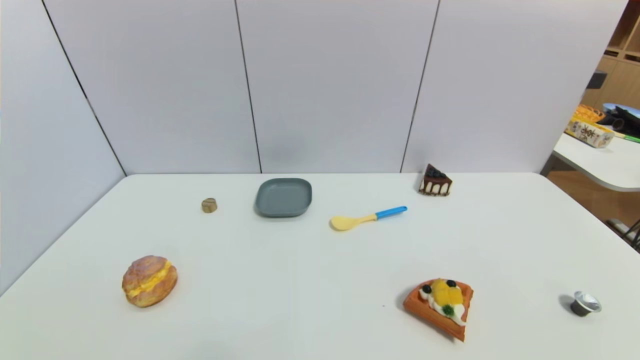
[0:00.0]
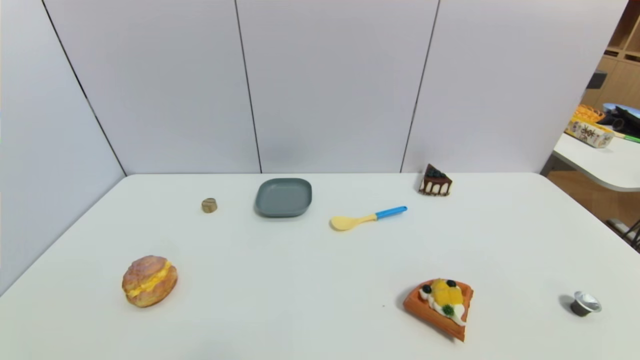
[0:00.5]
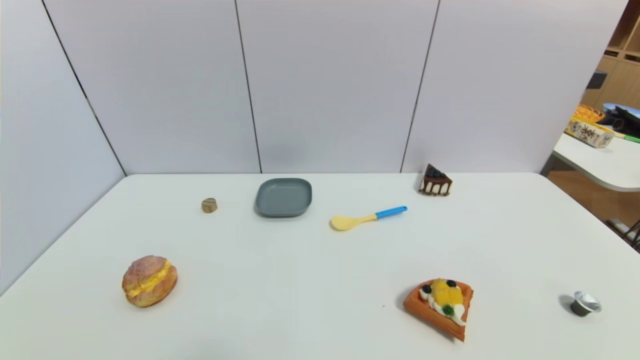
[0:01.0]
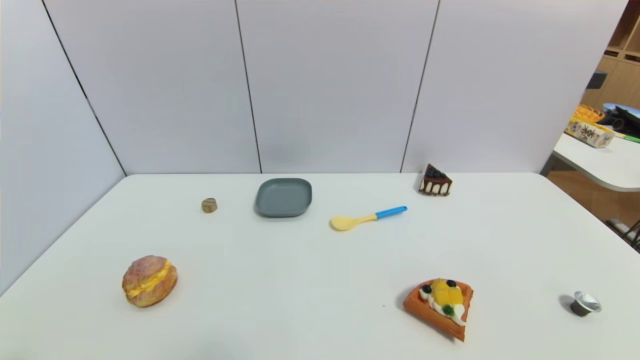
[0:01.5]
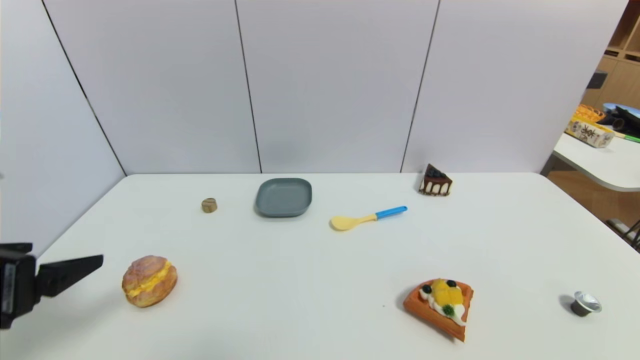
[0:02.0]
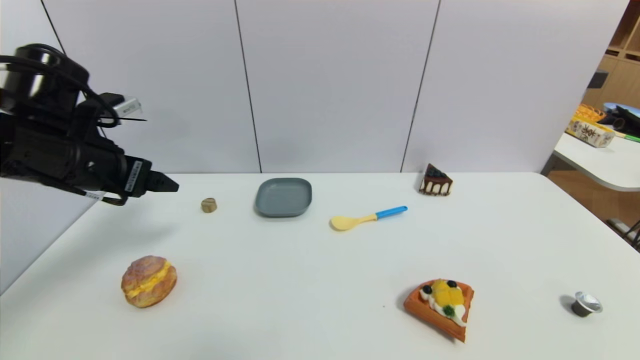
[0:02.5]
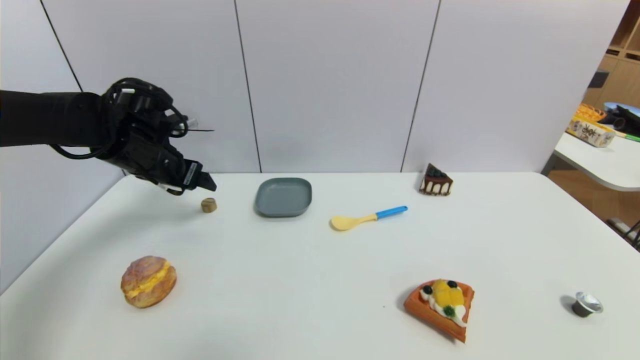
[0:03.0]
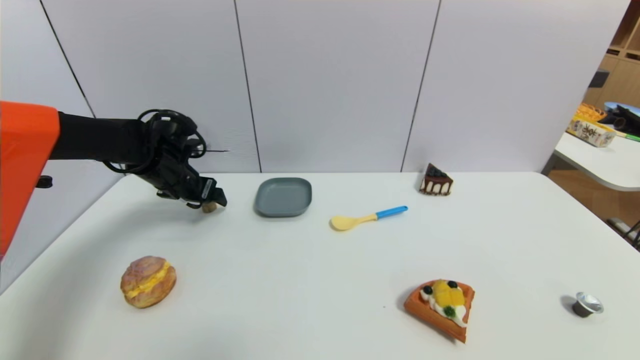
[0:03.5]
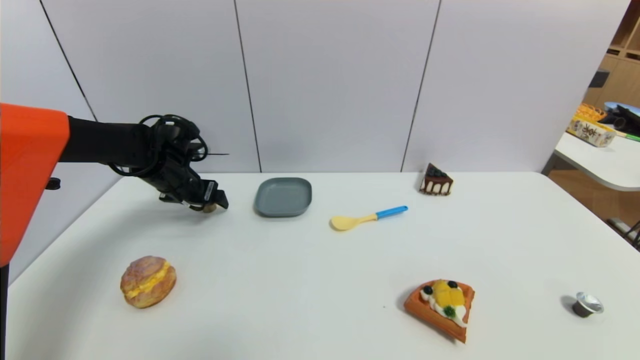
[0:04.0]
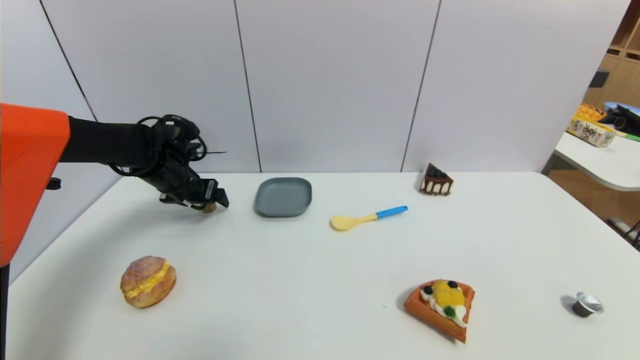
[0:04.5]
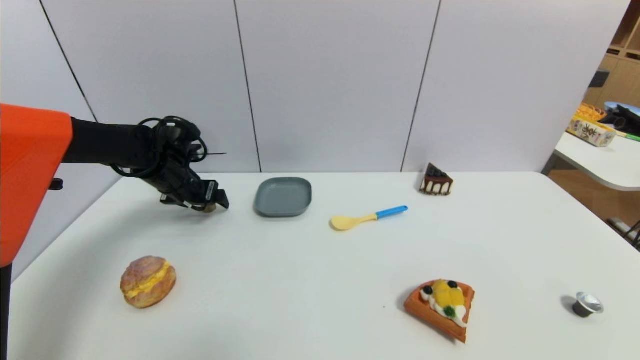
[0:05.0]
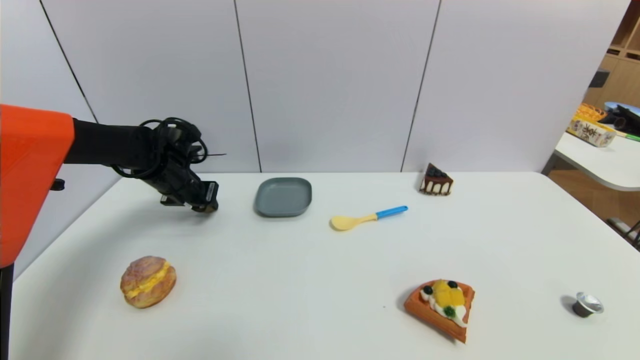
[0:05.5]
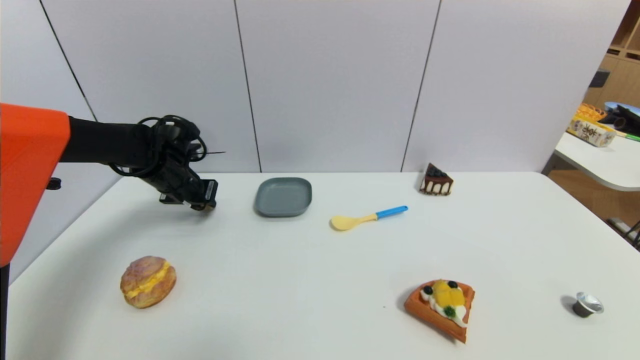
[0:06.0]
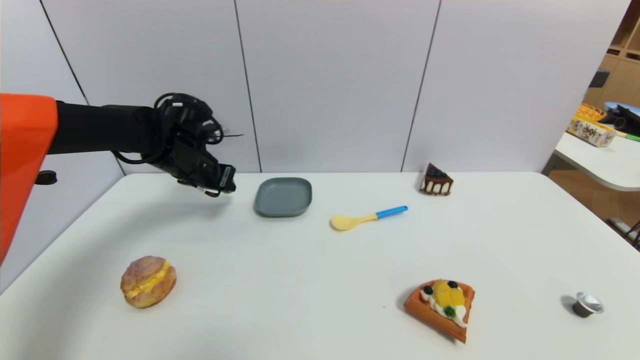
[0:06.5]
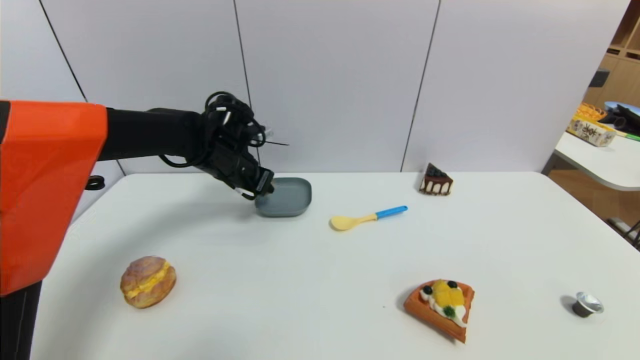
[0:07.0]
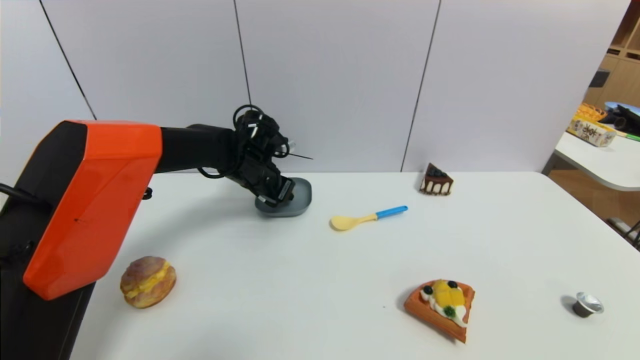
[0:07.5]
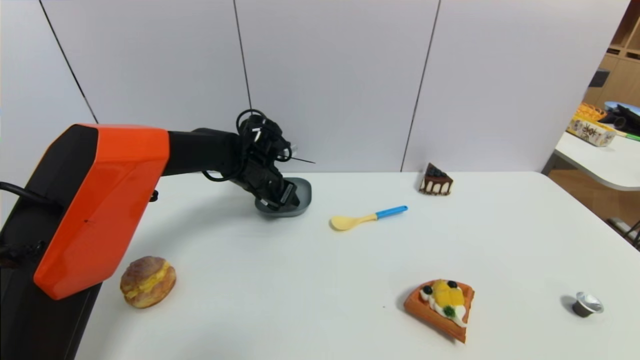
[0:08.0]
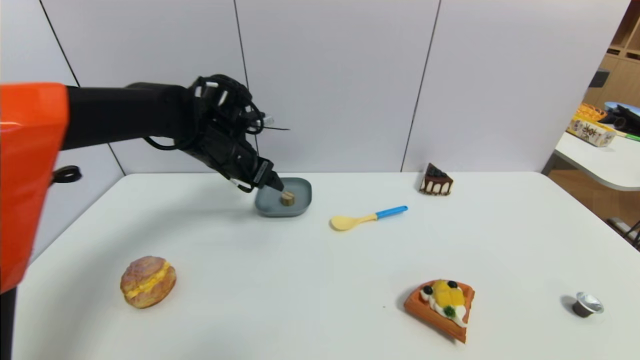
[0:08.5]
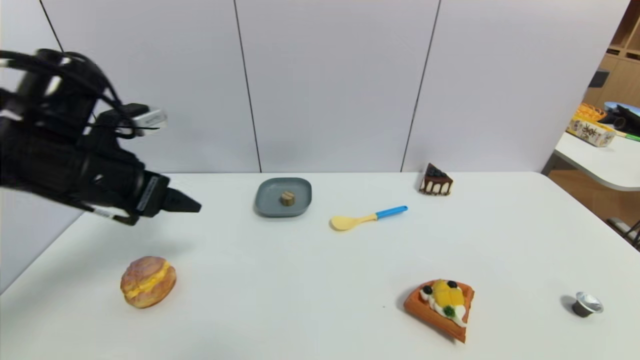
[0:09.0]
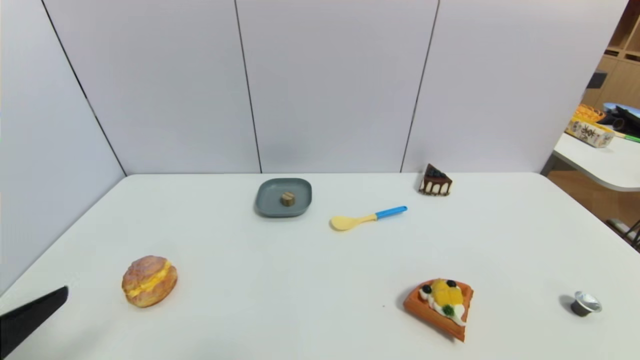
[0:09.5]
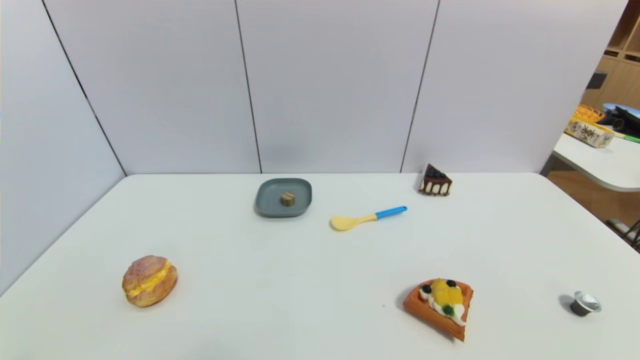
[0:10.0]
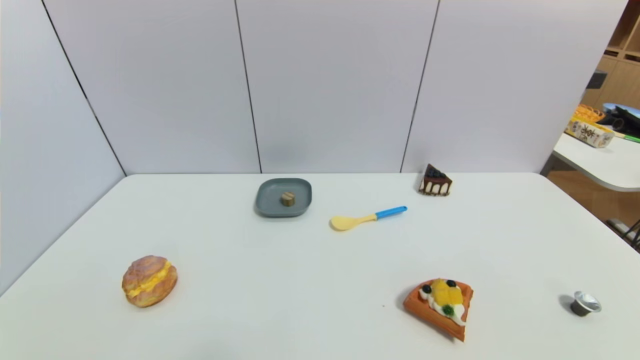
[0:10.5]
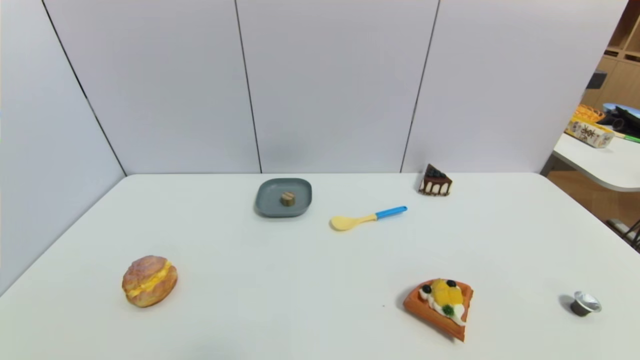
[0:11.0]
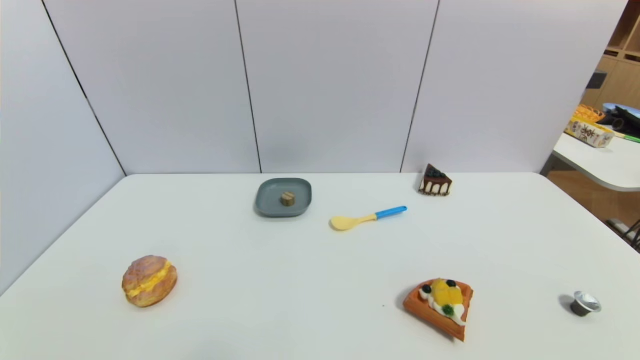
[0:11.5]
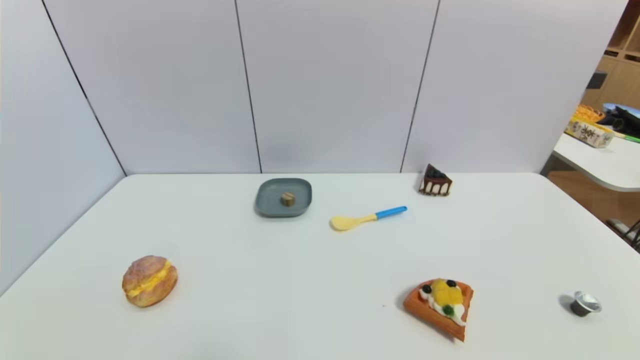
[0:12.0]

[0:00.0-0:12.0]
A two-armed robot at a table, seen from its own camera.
Task of the whole recording: use a gripper to pick the target object and place on the dish.
Step, 0:00.0 to 0:05.5: Grasp the round wooden block with the left gripper.
Step, 0:06.0 to 0:08.5: Place the round wooden block on the dish with the left gripper.
0:00.0 to 0:02.0: The left gripper moves upward and forward, some 20 cm.
0:02.0 to 0:04.0: The left gripper travels forward by approximately 30 cm.
0:06.0 to 0:08.0: The left gripper goes approximately 15 cm to the right, and opens its fingers.
0:08.0 to 0:10.0: The left gripper shifts about 50 cm backward, and opens its fingers.

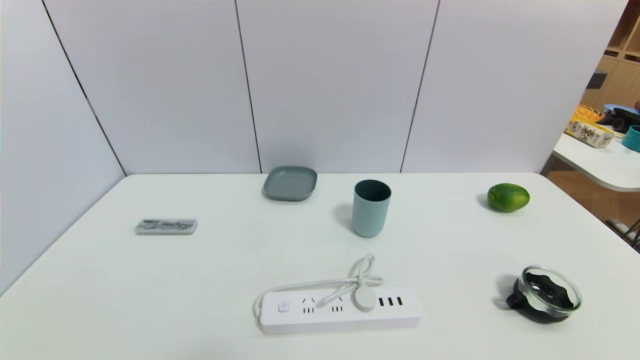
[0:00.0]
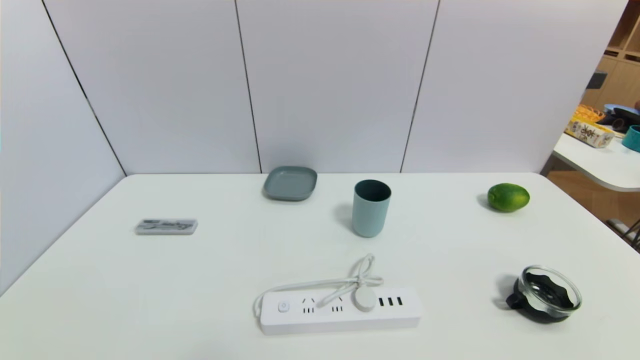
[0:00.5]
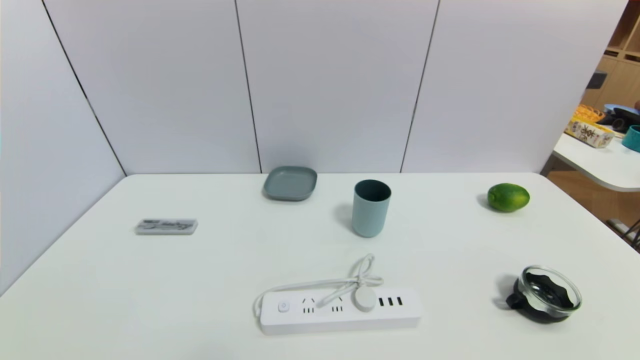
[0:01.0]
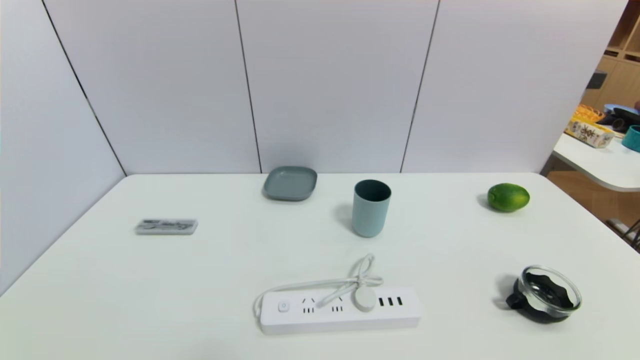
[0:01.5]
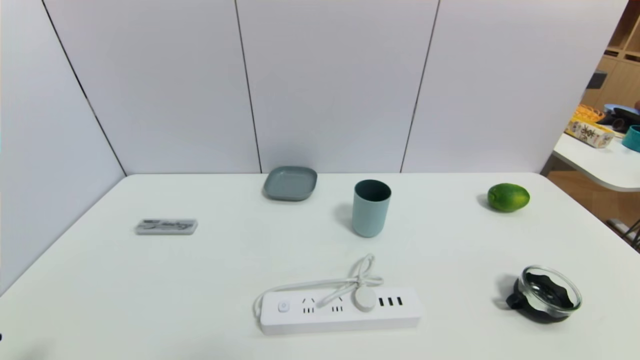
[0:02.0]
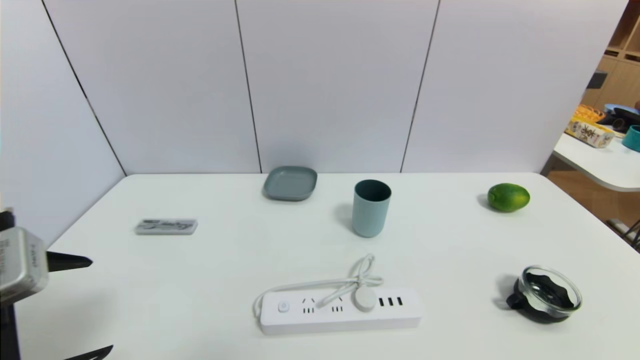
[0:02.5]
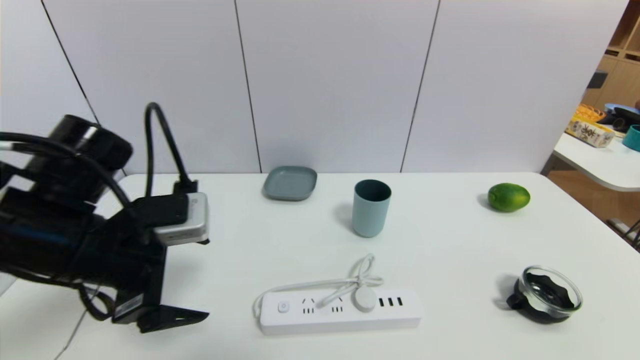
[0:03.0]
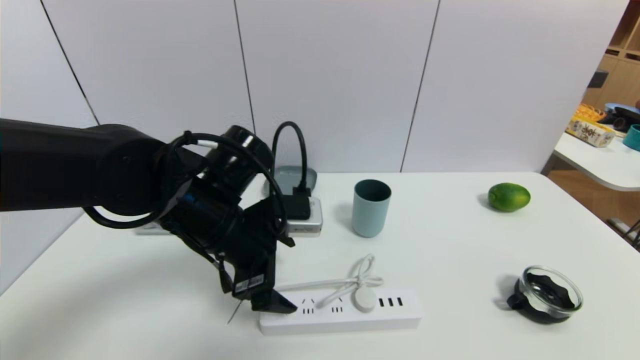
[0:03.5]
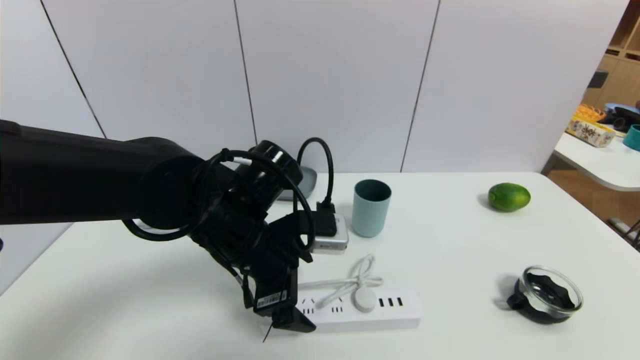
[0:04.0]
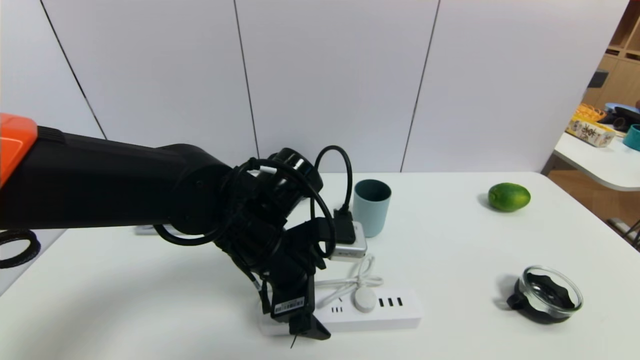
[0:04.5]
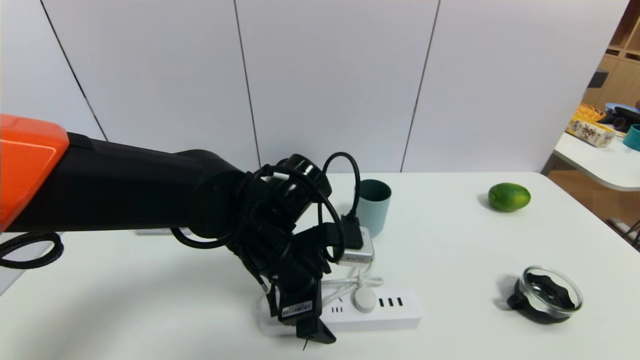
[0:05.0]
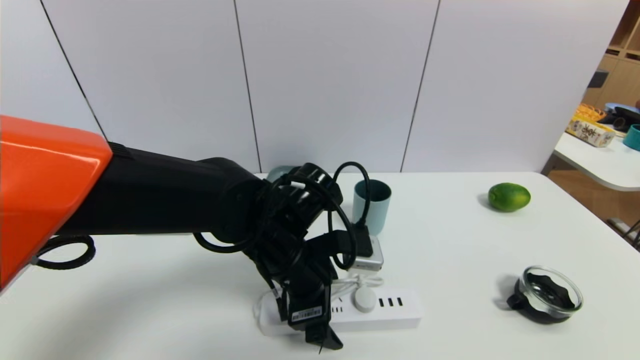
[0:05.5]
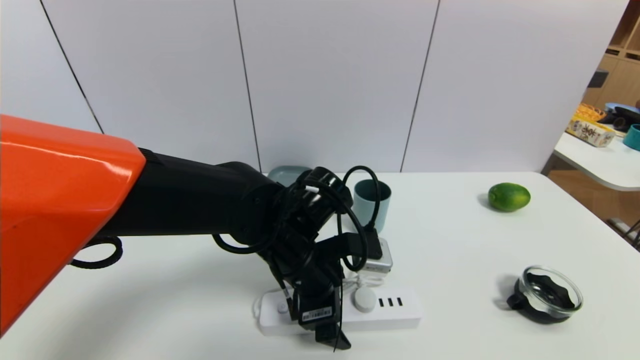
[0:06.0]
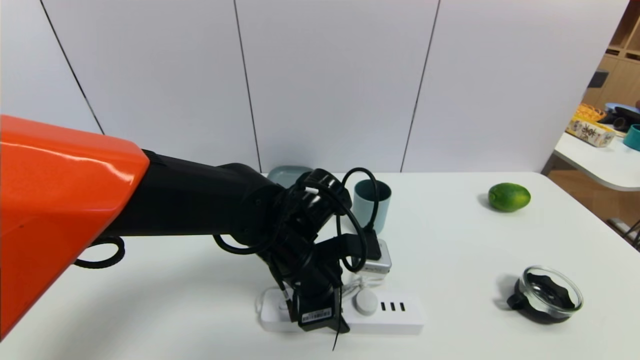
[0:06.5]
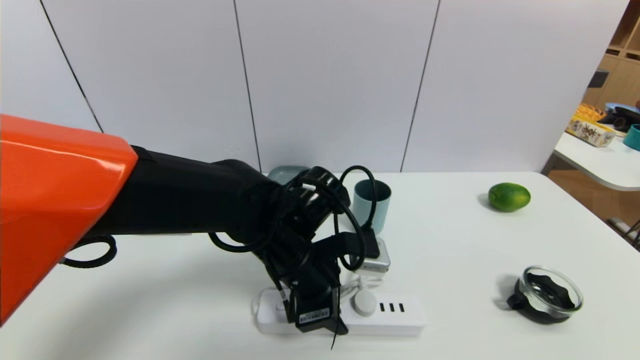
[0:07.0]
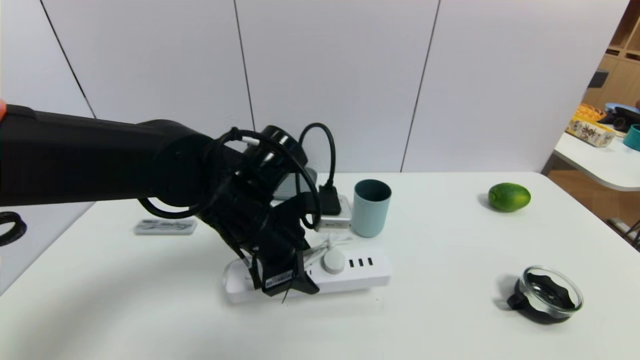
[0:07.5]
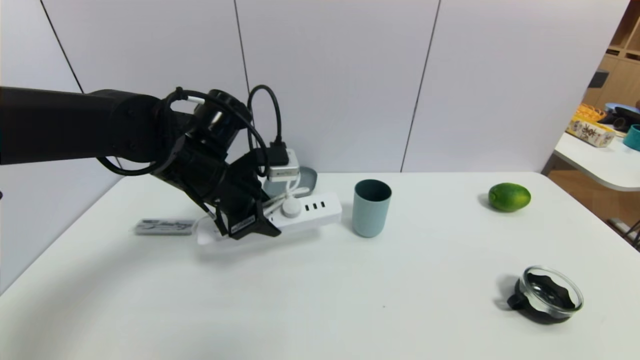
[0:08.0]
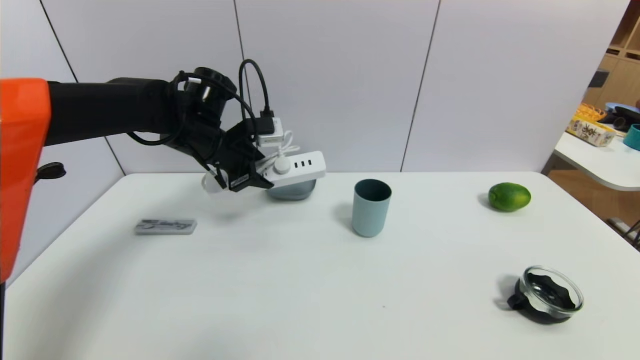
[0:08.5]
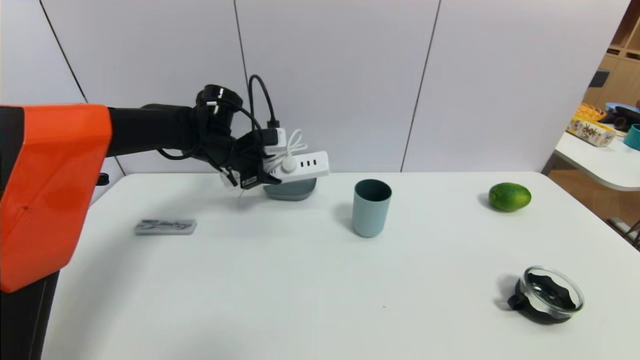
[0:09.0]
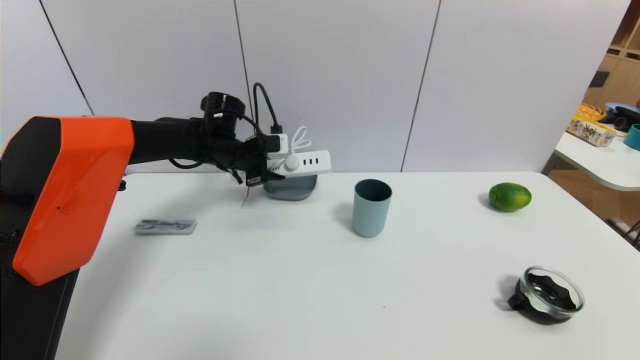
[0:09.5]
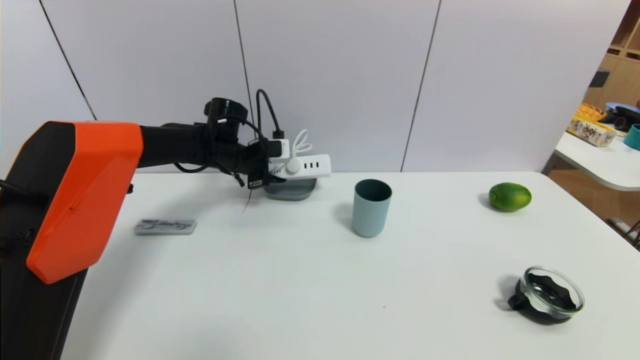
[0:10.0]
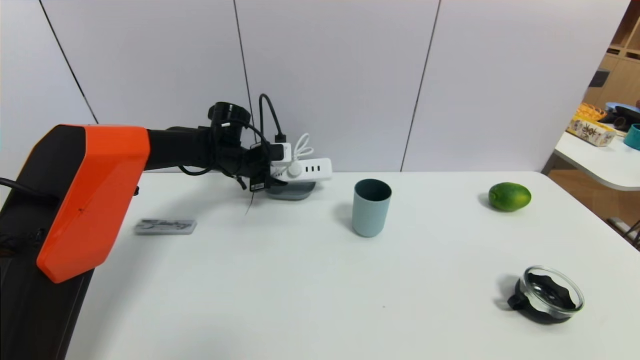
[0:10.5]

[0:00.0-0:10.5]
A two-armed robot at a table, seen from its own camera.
Task of the whole recording: use a gripper to pick the target object and place on the dish.
Step, 0:00.0 to 0:06.5: Grasp the plugboard with the left gripper.
0:02.0 to 0:04.0: The left gripper travels forward and to the right by approximately 30 cm.
0:04.0 to 0:06.5: The left gripper travels to the right by approximately 5 cm, and closes up.
0:06.5 to 0:08.5: The left gripper shifts roughly 20 cm to the left, forward and upward.
0:08.5 to 0:10.5: The left gripper travels forward and downward by approximately 10 cm.
